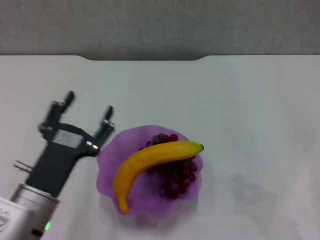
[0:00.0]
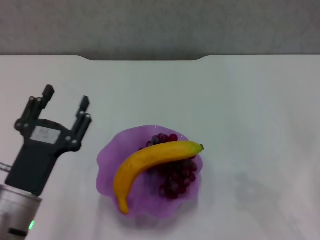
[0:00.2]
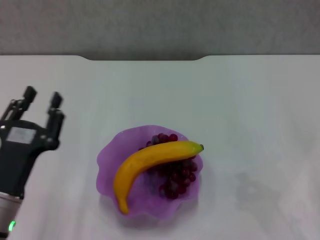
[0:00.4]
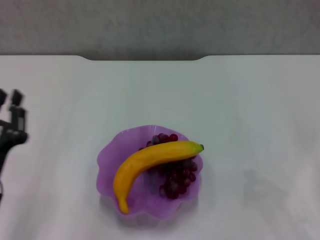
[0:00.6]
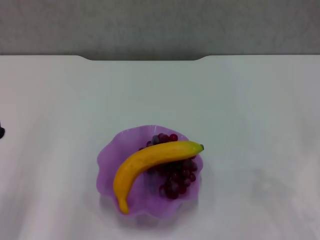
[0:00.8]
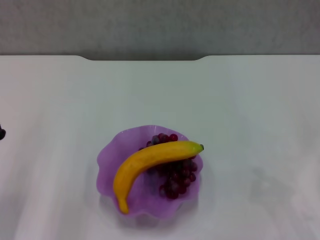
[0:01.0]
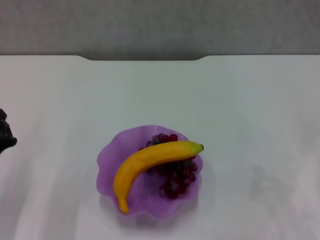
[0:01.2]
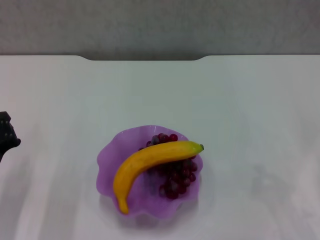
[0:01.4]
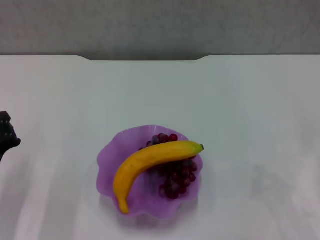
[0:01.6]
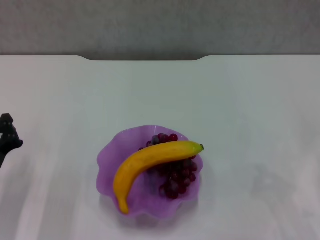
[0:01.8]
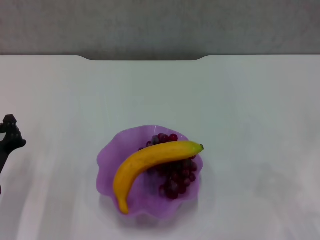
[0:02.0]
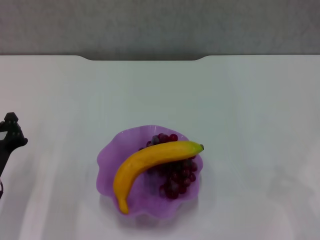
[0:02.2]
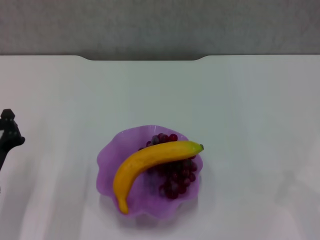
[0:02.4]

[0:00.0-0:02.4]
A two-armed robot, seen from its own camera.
0:00.0 to 0:01.2: The left gripper moves to the left, approximately 10 cm, and closes up.
